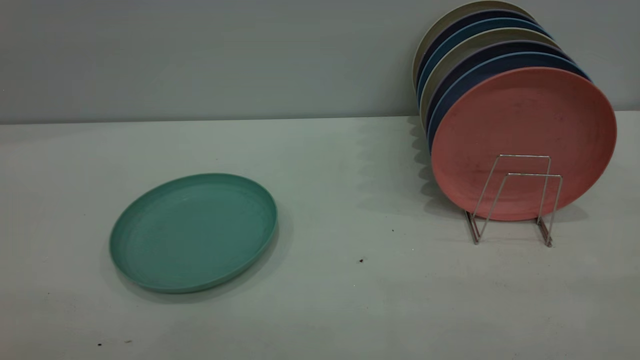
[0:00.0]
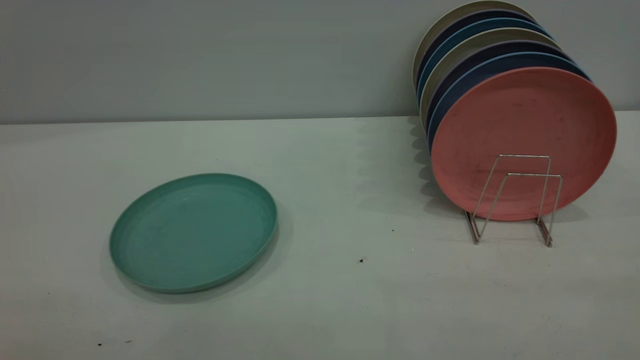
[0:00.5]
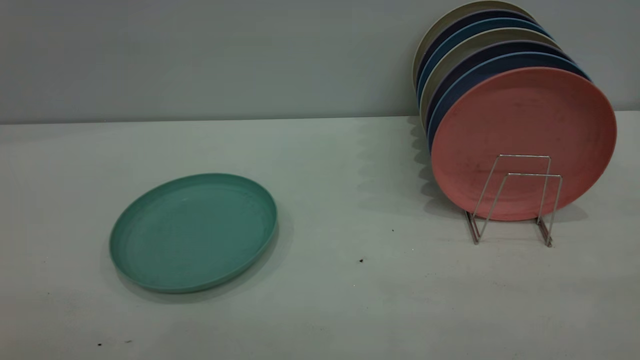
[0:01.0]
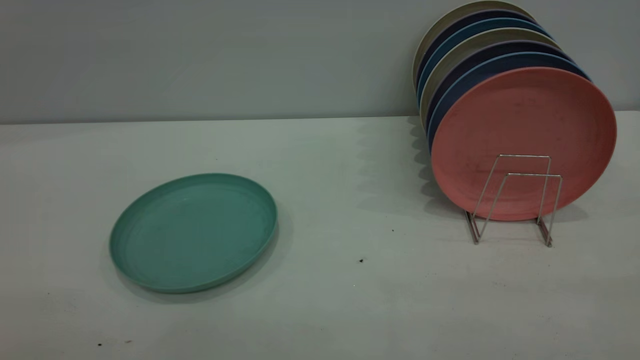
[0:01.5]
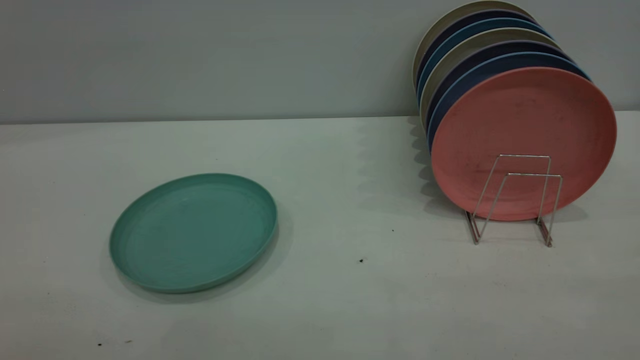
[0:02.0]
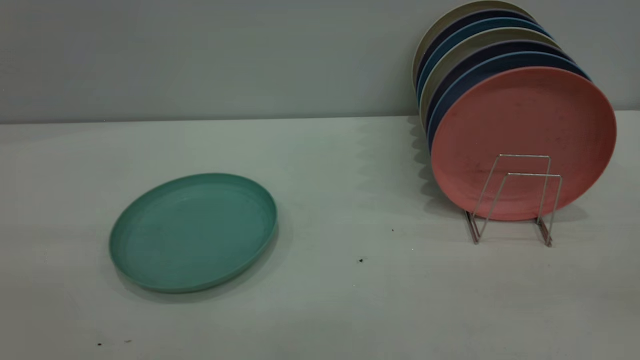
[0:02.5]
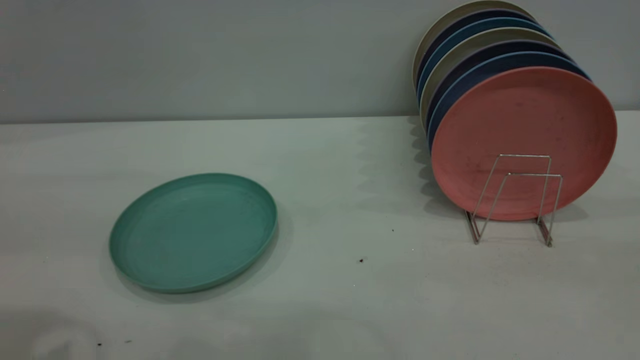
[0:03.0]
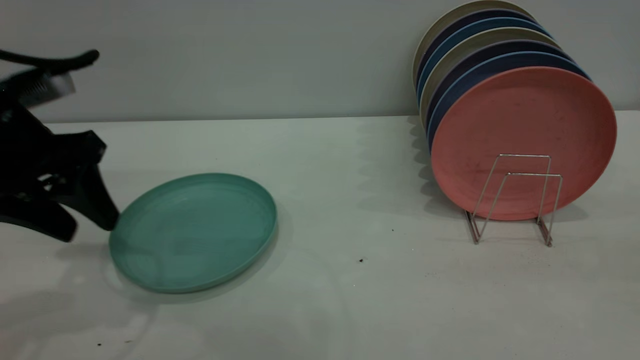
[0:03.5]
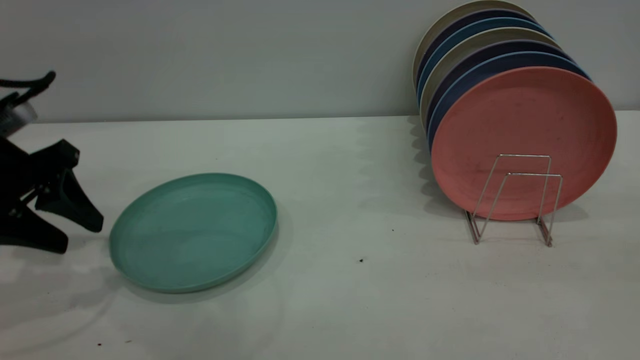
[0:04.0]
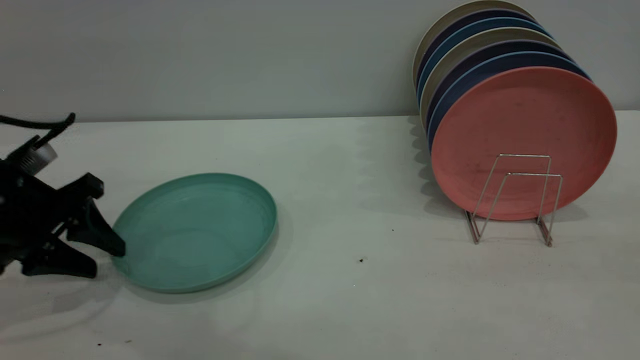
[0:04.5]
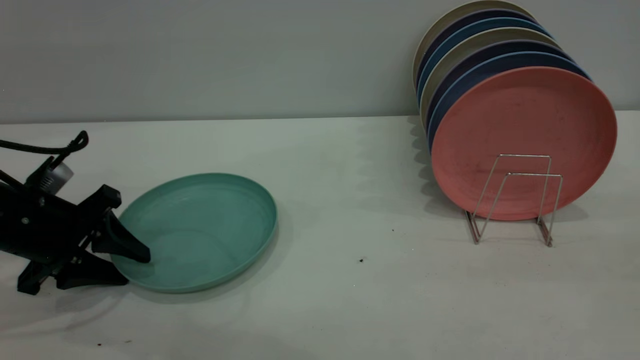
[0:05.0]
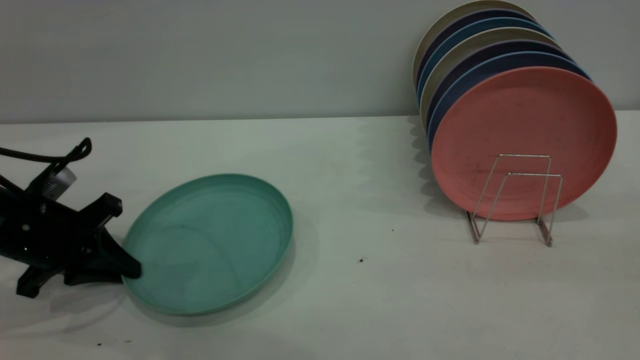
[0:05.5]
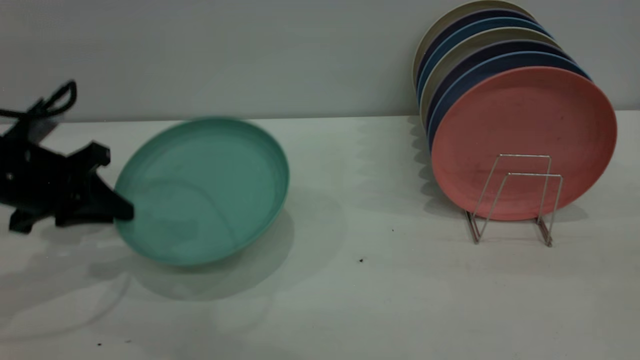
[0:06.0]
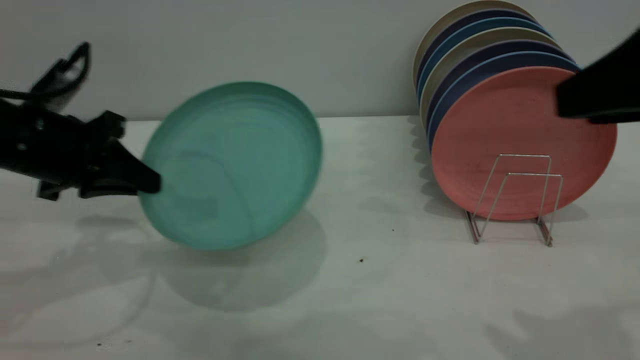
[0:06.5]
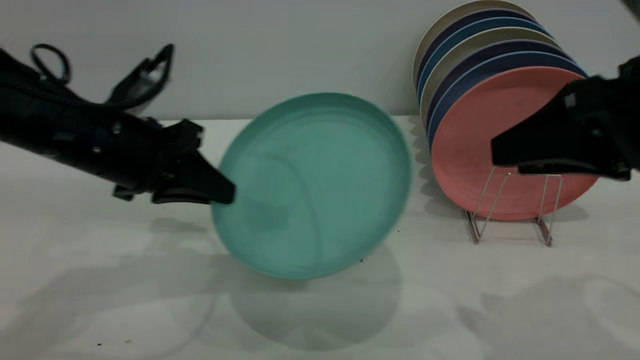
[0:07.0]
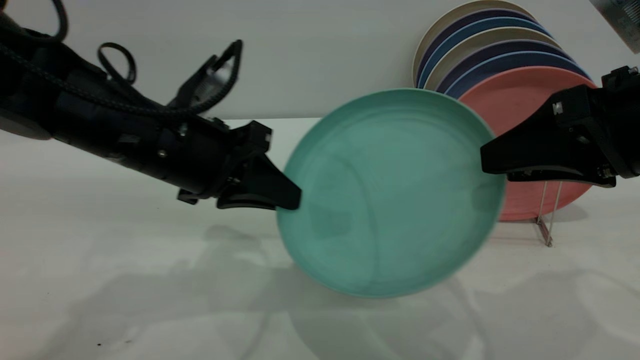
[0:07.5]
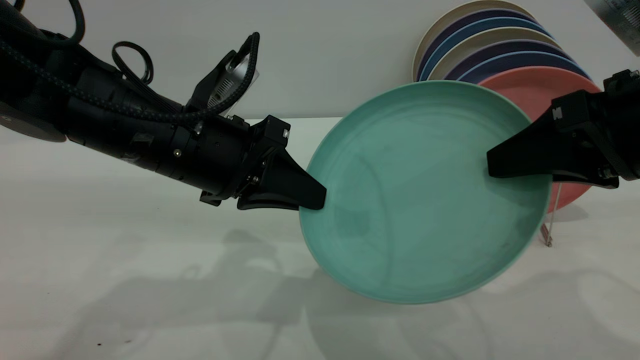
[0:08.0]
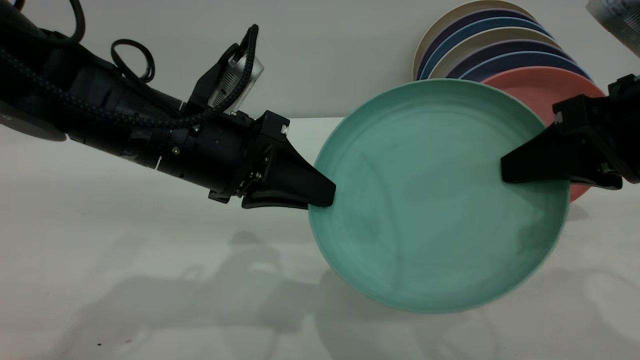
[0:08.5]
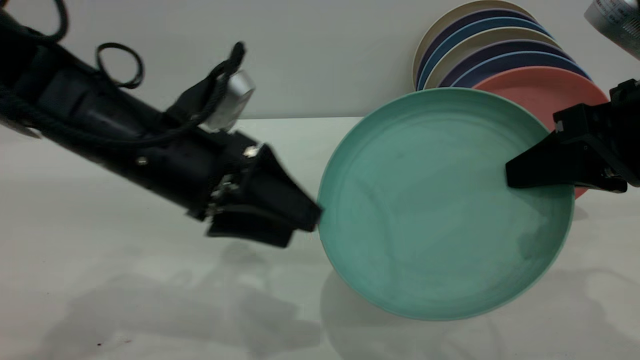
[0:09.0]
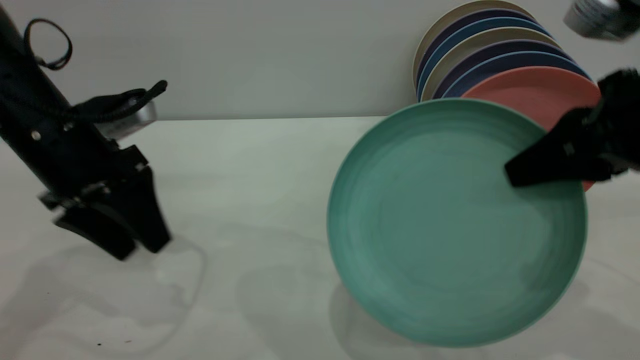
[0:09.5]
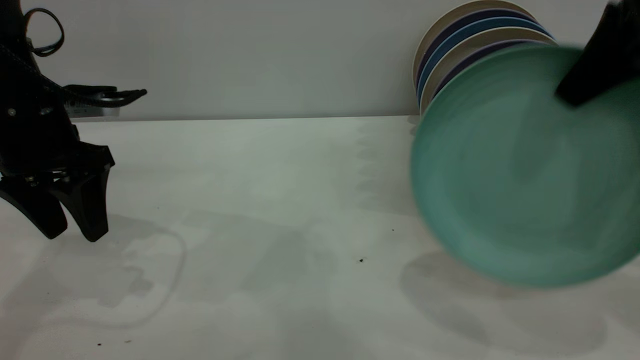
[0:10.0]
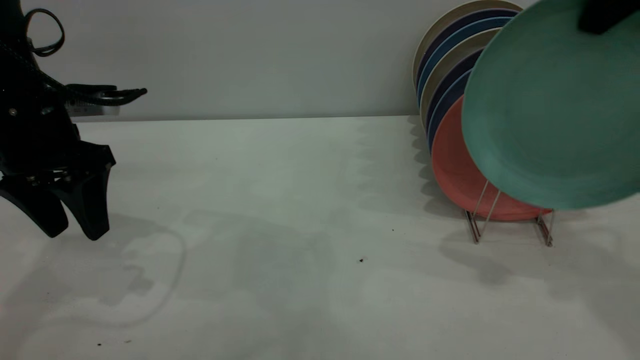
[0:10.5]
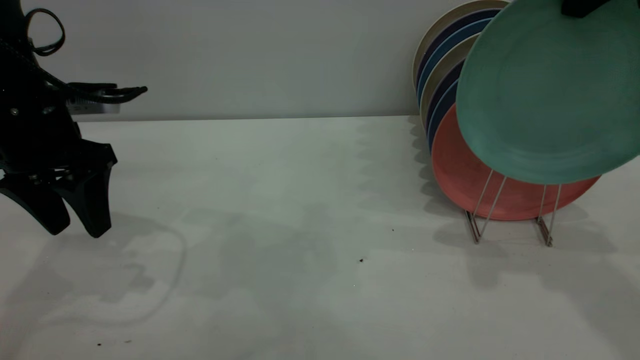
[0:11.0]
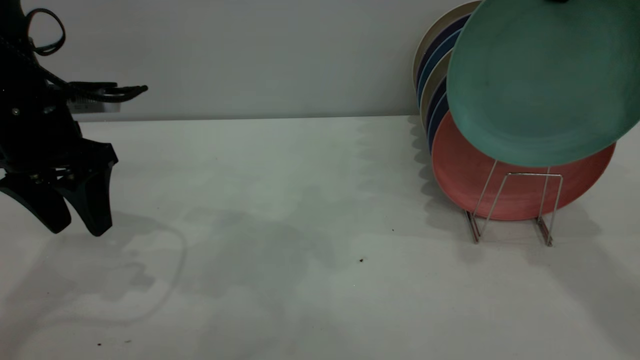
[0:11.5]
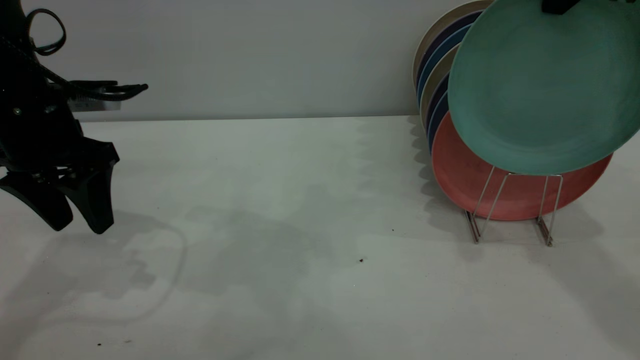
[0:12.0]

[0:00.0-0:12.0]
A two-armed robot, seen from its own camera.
Task of the whole recording: the left gripper grasp the green plate, the left gripper pass the green plate to the right gripper, and the right gripper place the green plate on the plate rack.
Step, 0:00.0 to 0:06.0: Pick up the plate with the left gripper.
Step, 0:06.5 to 0:09.0: Pass the plate from the left gripper to the right gripper.
0:00.0 to 0:02.0: Neither gripper changes place.
0:02.0 to 0:04.0: The left gripper goes approximately 40 cm forward and downward.
0:04.0 to 0:06.0: The left gripper closes up.
0:06.0 to 0:08.0: The left gripper goes some 20 cm to the right; the right gripper is displaced forward and downward by about 15 cm, and closes its fingers.
0:08.0 to 0:10.0: The left gripper is displaced to the left by approximately 15 cm, and opens up, while the right gripper shifts roughly 10 cm upward and forward, and closes up.
0:10.0 to 0:12.0: The right gripper is displaced forward by about 5 cm.

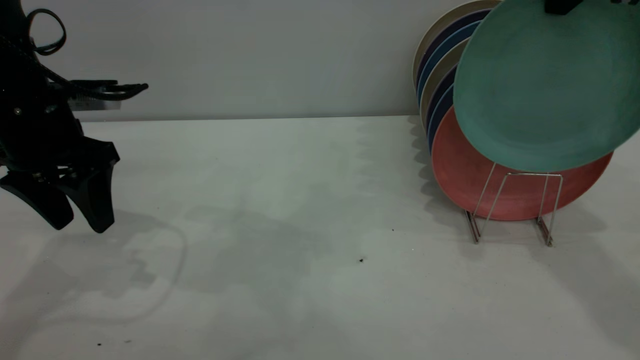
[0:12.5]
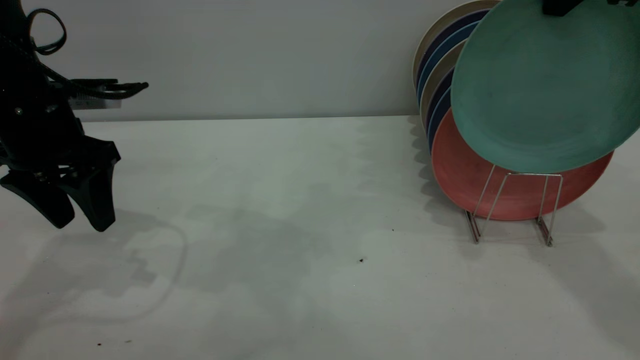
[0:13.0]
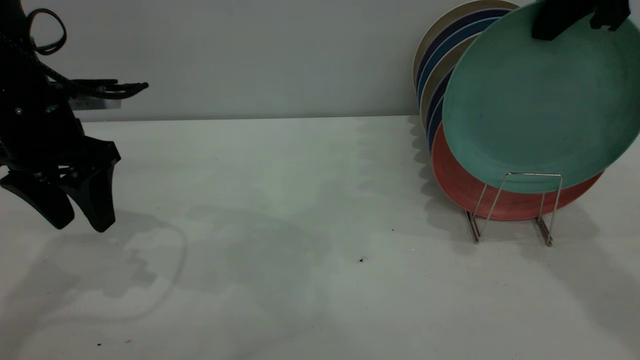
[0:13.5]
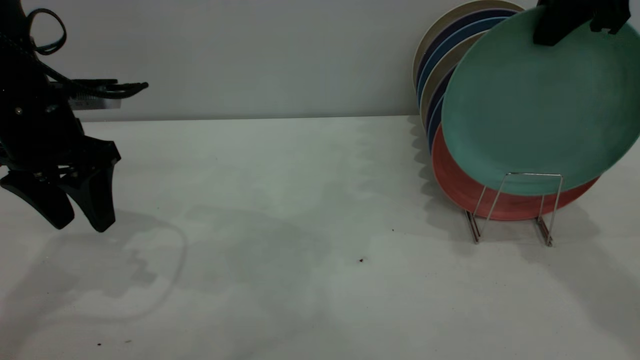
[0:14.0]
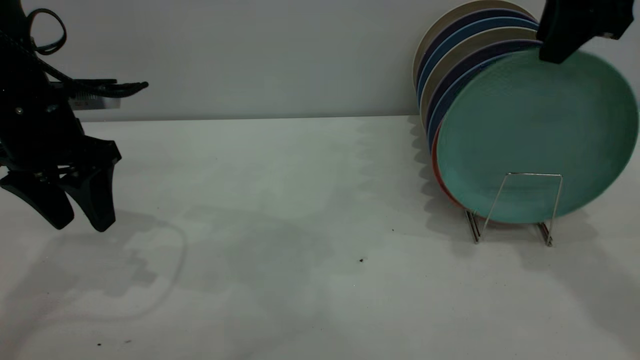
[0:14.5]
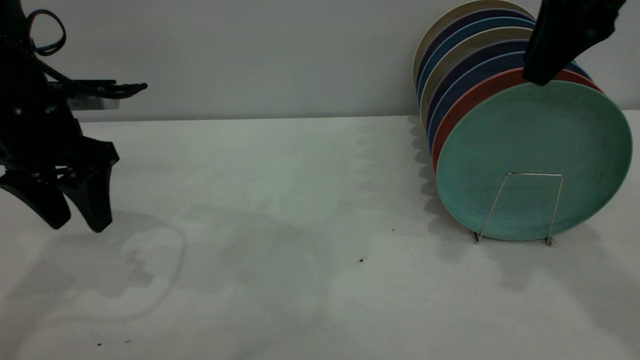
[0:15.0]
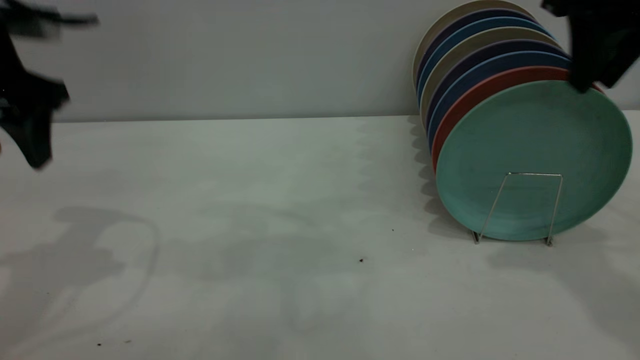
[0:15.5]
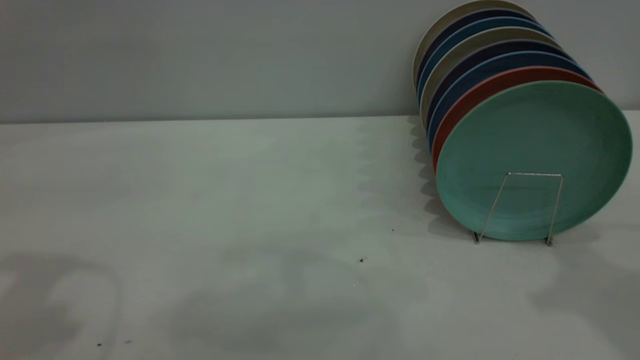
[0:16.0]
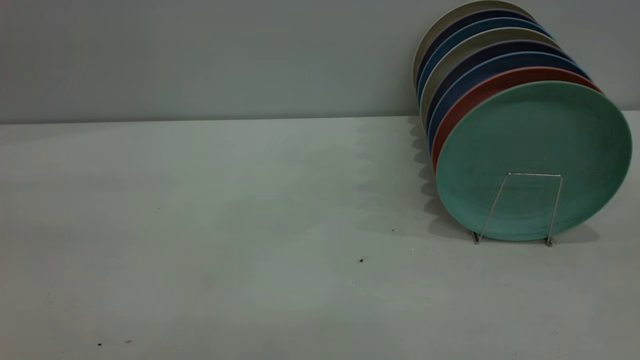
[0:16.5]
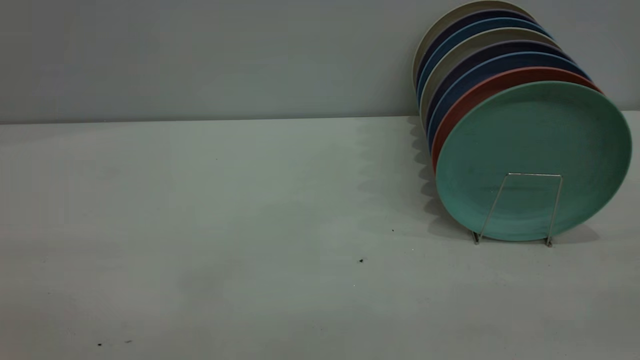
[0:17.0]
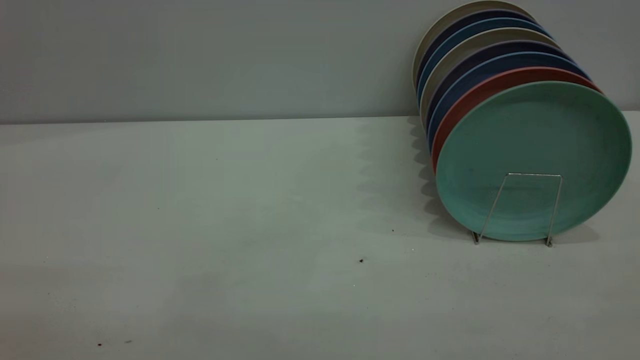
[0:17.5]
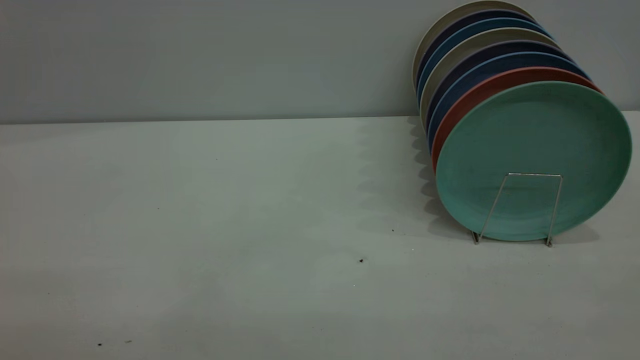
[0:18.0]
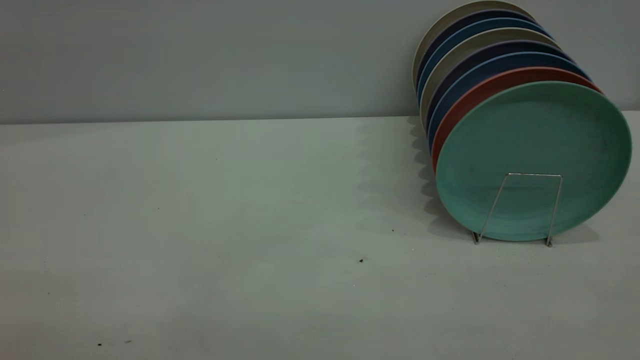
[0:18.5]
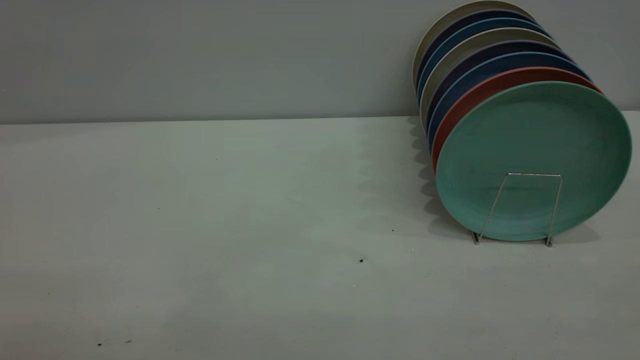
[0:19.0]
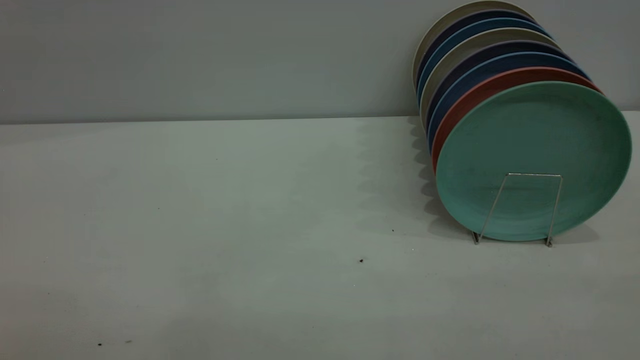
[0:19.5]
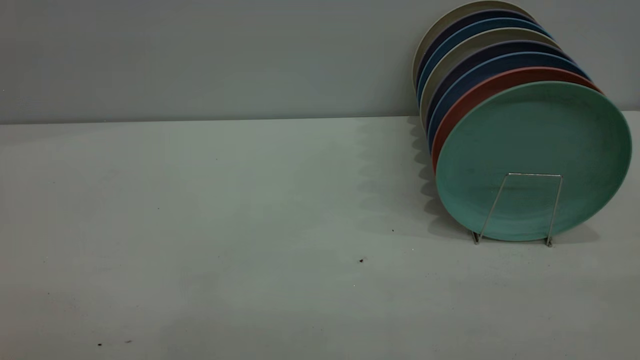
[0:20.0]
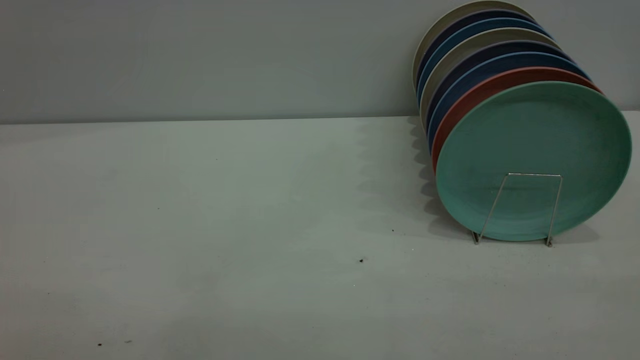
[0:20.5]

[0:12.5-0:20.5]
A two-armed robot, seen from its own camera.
Task of the whole recording: the left gripper grasp the green plate, the left gripper pass the green plate to the right gripper, and the right gripper place the green plate on the plate rack.
Step, 0:12.5 to 0:15.5: Place the plate on the shelf.
0:12.5 to 0:14.5: The right gripper opens.
0:14.5 to 0:16.5: The left gripper moves backward and upward, approximately 35 cm, while the right gripper moves backward, some 25 cm.
